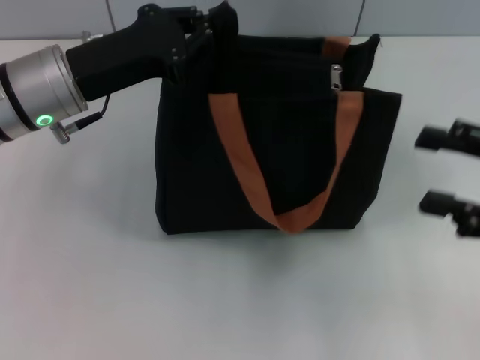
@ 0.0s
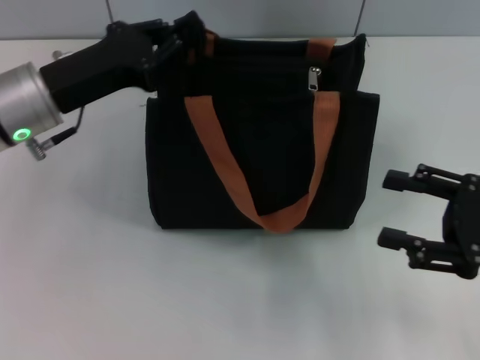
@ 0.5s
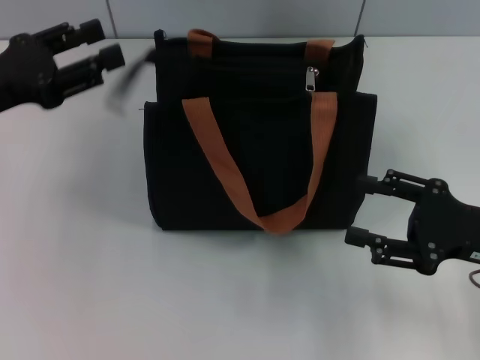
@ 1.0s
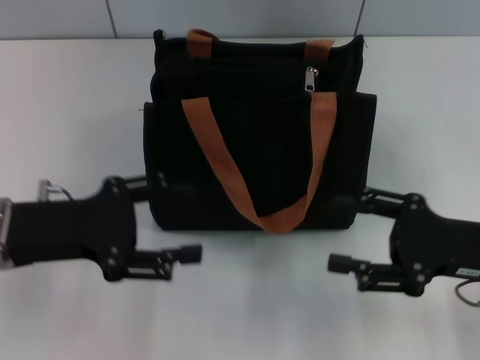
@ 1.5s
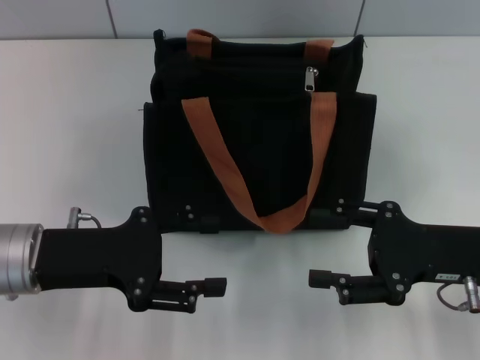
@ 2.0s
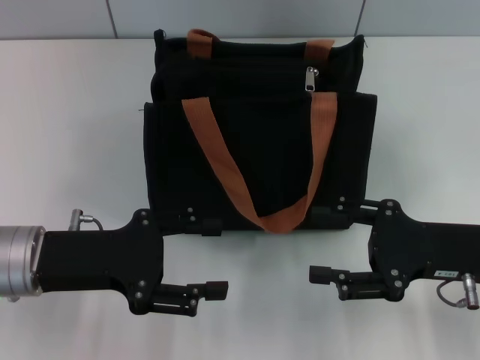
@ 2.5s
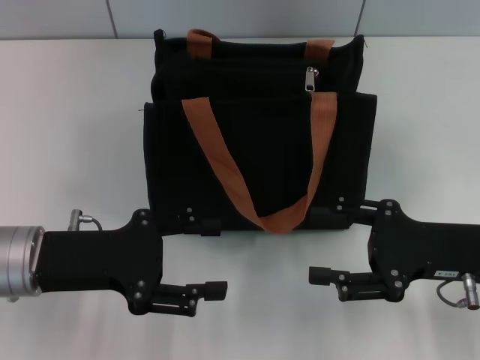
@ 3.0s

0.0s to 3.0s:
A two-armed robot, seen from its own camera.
0.0s to 1.5s: The right gripper heads to the left, covering roughly 5 cm, while the left gripper heads backward and to the left, covering approximately 10 cm, and opens up.
1.5s to 3.0s: The grippers stay close to where they were, moving slightly.

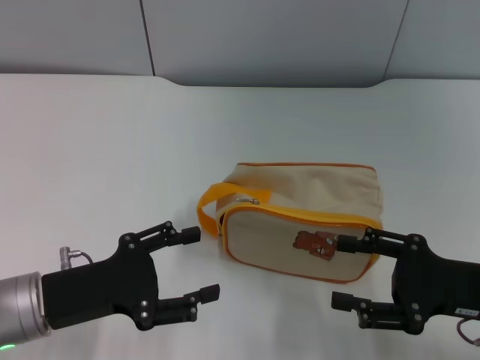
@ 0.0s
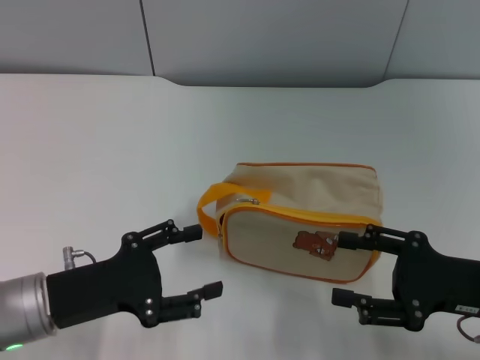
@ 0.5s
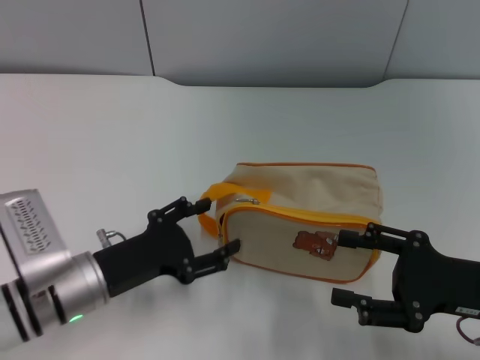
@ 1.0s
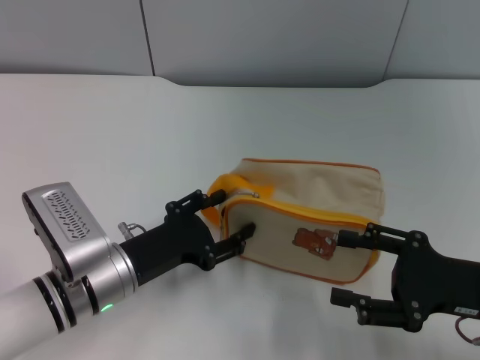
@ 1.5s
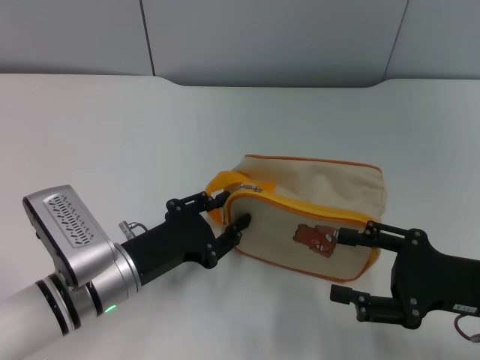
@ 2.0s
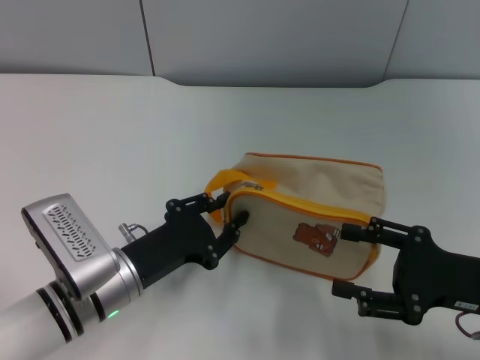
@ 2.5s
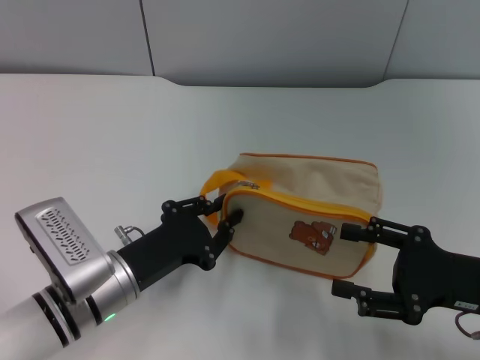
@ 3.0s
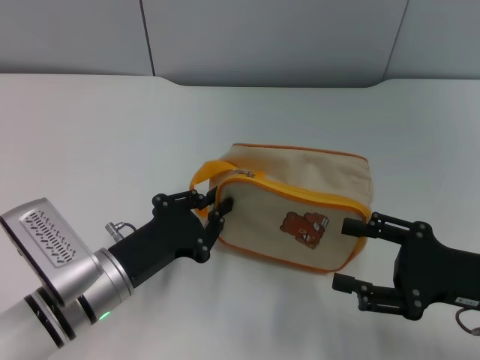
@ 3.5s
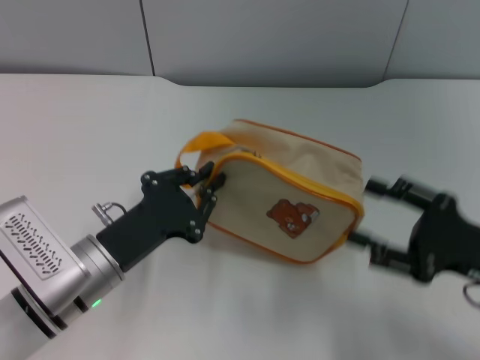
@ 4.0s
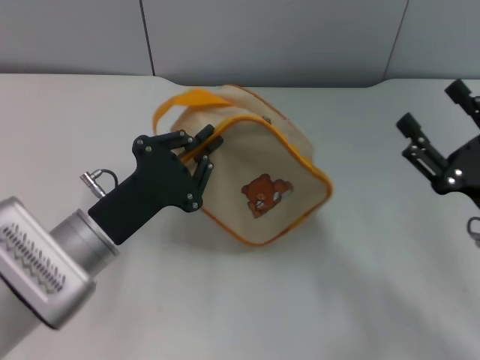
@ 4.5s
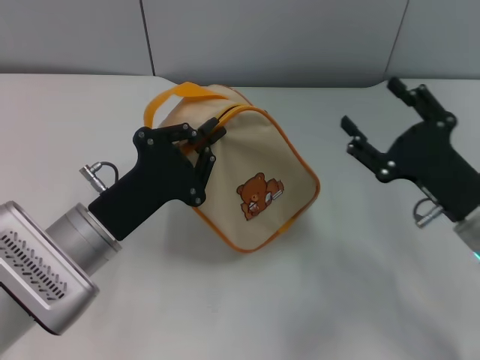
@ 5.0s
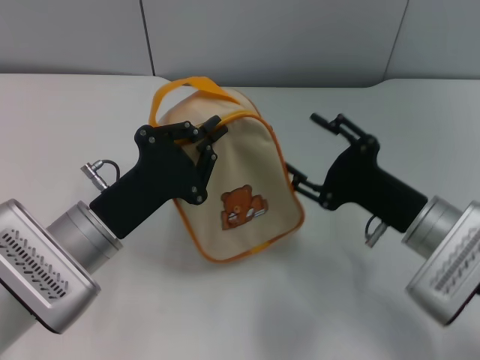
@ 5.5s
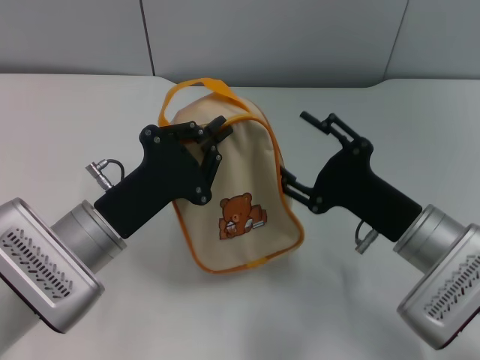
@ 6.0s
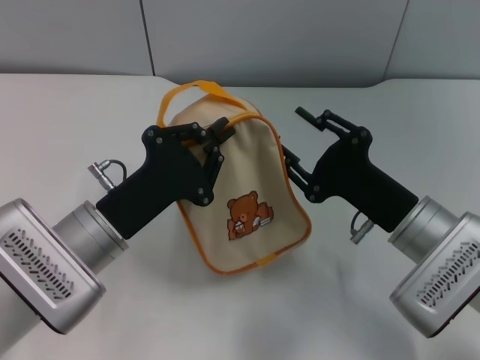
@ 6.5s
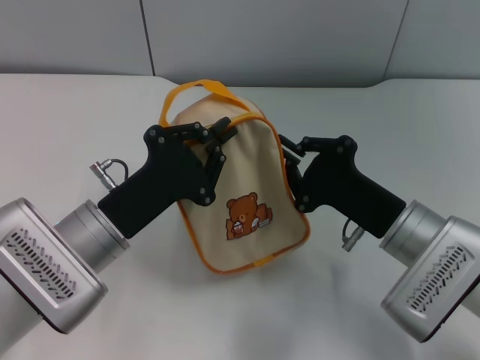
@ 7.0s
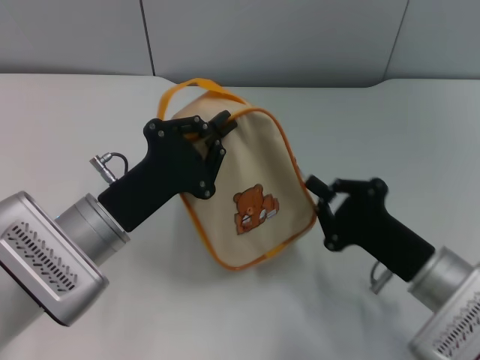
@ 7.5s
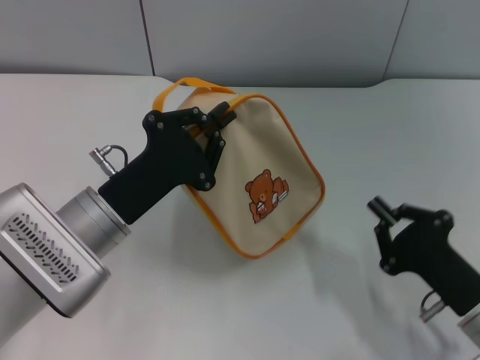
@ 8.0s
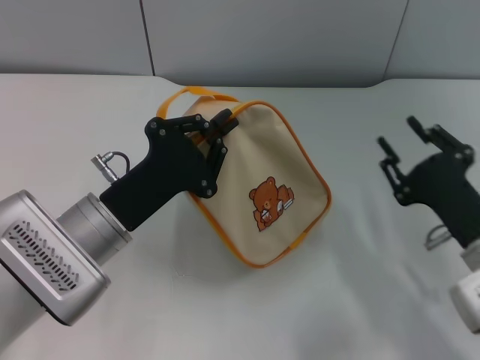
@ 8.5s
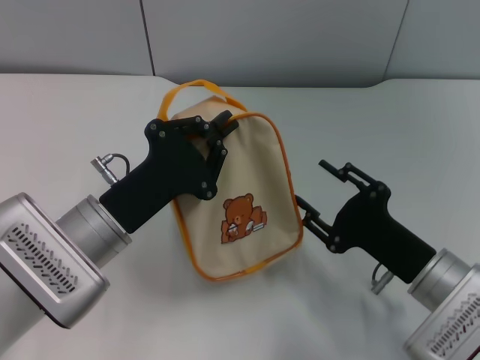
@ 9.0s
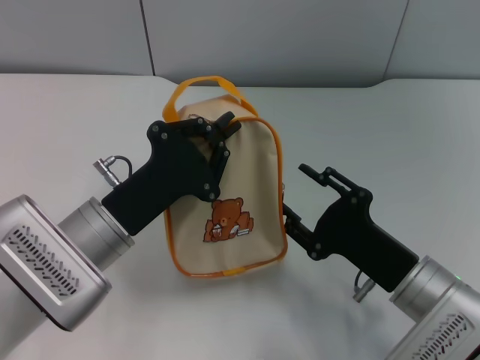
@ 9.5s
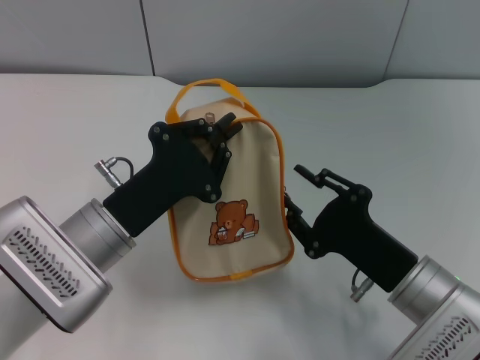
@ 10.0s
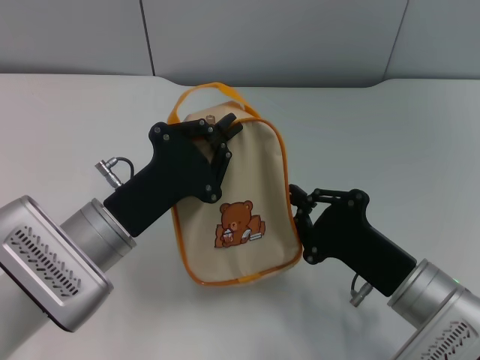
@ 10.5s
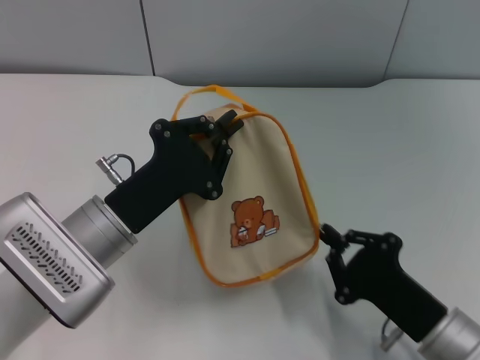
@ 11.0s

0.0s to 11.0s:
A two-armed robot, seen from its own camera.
Step, 0.0s to 4.0s: Pick up the bag with left gripper.
0.0s to 2.0s: The left gripper goes roughly 5 cm to the right.
2.0s to 3.5s: The left gripper closes.
3.5s to 5.5s: The right gripper moves to the left and forward, some 10 cm.
5.5s to 7.5s: The right gripper moves roughly 5 cm, and closes its fingers.
7.5s to 9.0s: The right gripper opens up.
9.0s to 11.0s: The right gripper shifts roughly 5 cm backward, and closes.

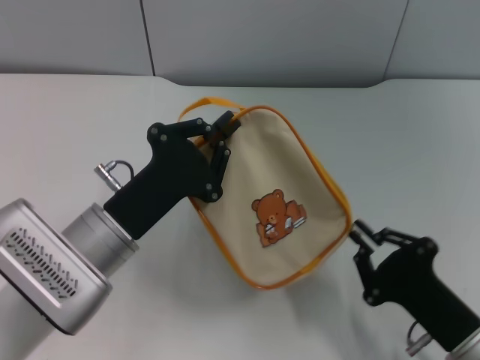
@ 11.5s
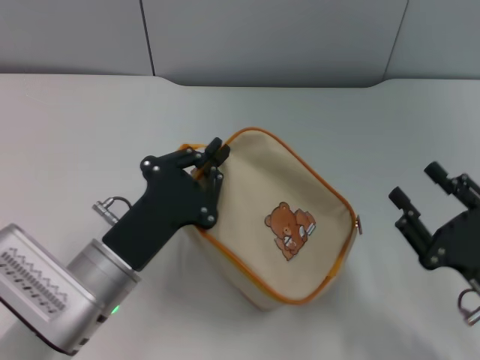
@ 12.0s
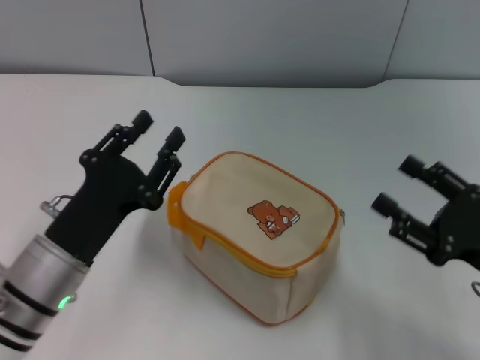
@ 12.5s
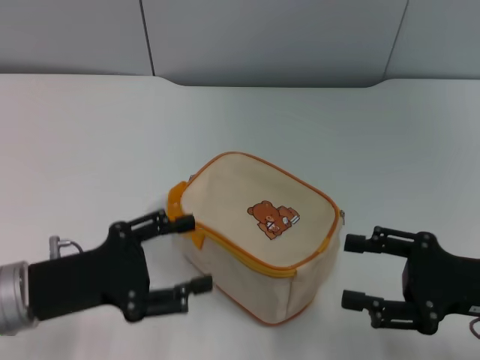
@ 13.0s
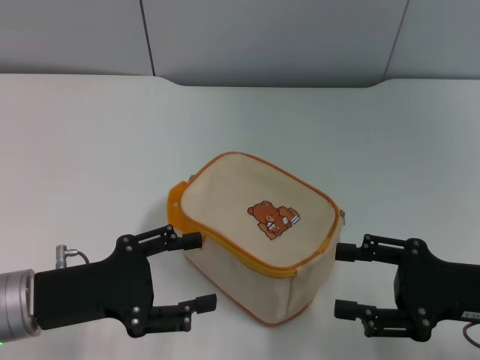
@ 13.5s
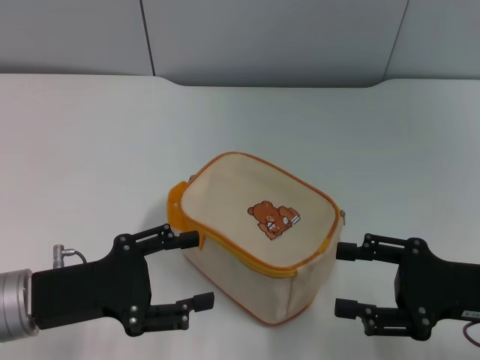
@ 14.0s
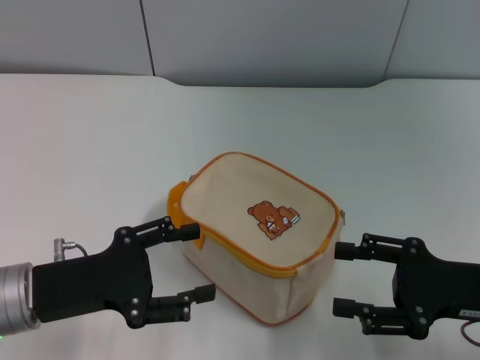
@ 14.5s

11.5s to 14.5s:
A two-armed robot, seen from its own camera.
11.5s to 13.0s: The right gripper is displaced upward, forward and to the right by roughly 10 cm, and opens its fingers, while the left gripper is displaced to the left by approximately 10 cm, and opens its fingers.
13.0s to 14.5s: Both grippers stay about where they are.
